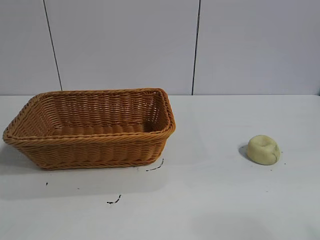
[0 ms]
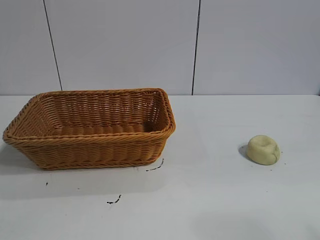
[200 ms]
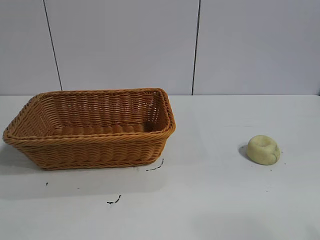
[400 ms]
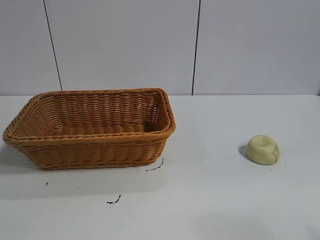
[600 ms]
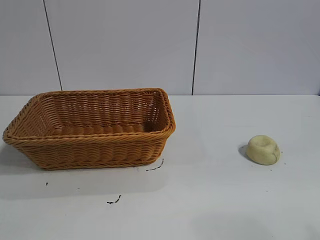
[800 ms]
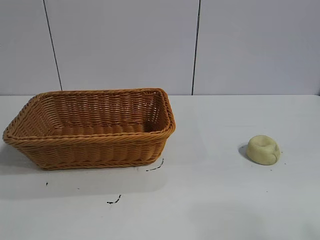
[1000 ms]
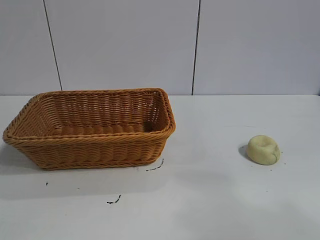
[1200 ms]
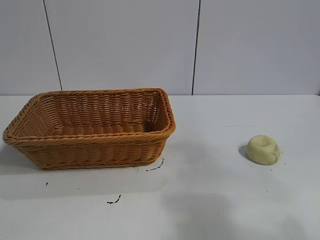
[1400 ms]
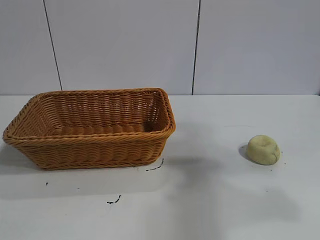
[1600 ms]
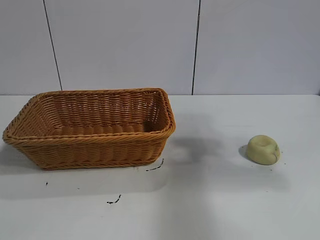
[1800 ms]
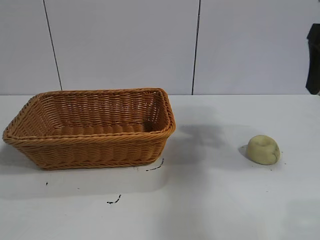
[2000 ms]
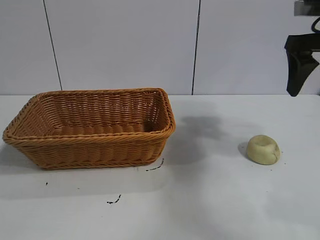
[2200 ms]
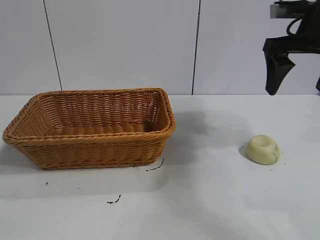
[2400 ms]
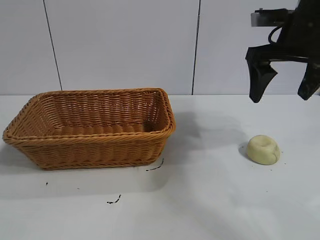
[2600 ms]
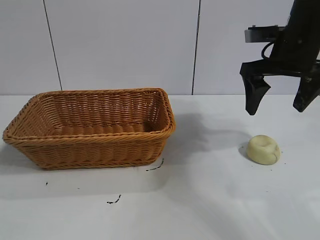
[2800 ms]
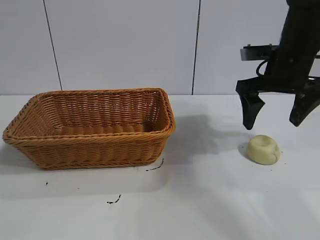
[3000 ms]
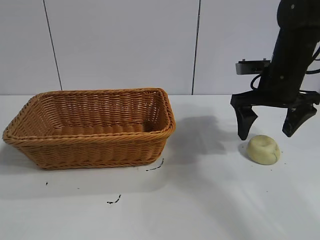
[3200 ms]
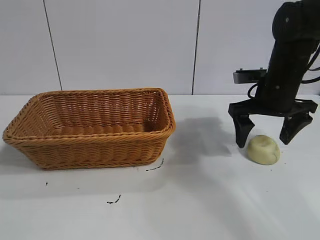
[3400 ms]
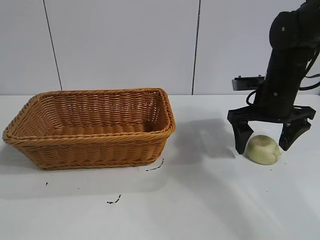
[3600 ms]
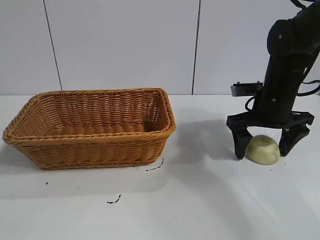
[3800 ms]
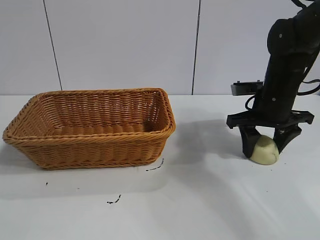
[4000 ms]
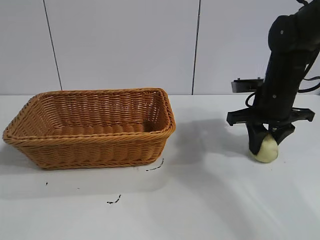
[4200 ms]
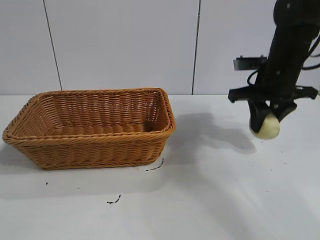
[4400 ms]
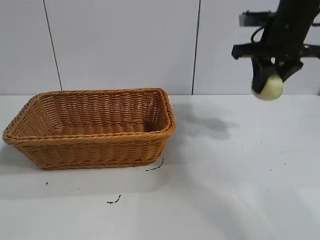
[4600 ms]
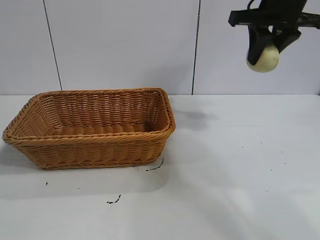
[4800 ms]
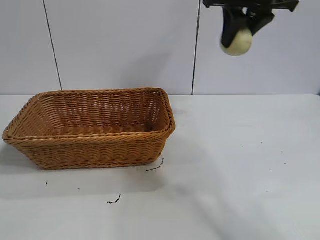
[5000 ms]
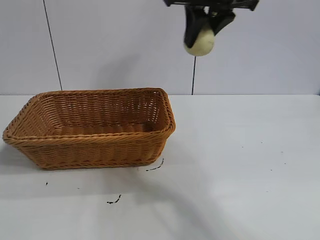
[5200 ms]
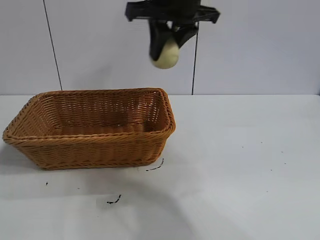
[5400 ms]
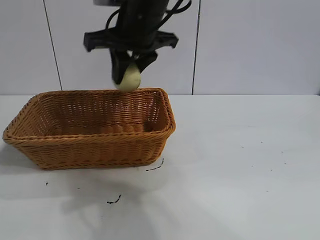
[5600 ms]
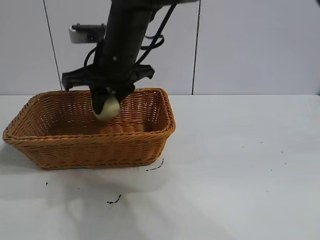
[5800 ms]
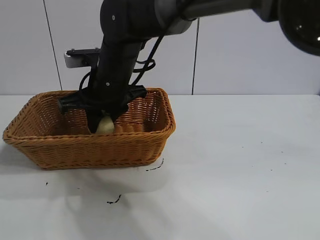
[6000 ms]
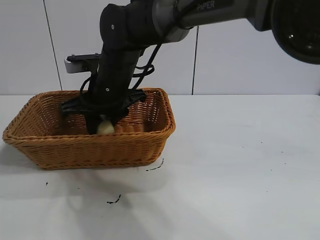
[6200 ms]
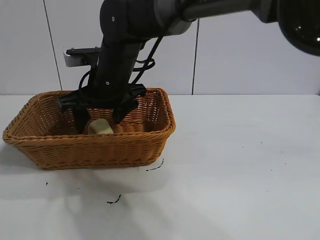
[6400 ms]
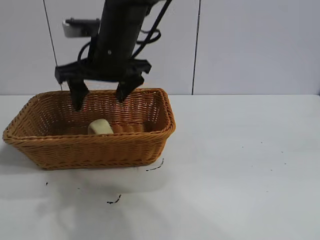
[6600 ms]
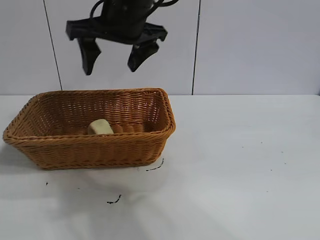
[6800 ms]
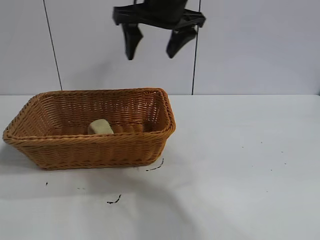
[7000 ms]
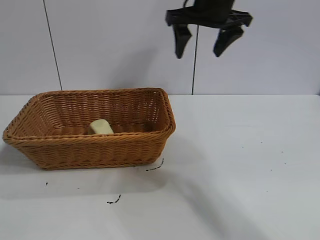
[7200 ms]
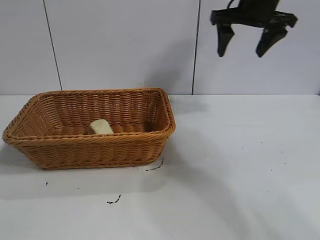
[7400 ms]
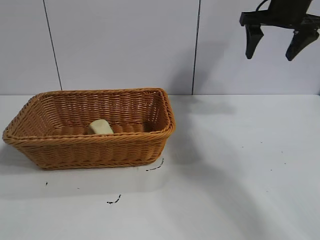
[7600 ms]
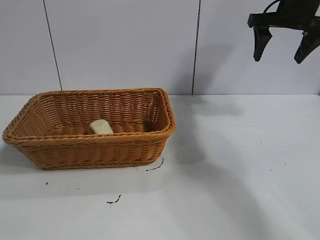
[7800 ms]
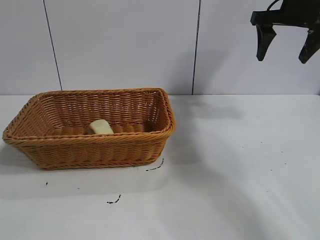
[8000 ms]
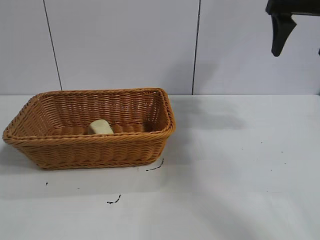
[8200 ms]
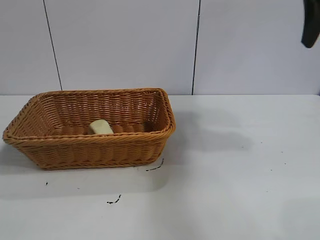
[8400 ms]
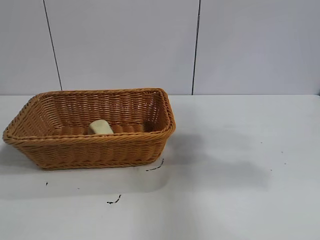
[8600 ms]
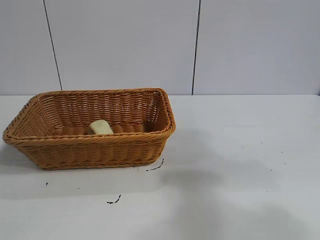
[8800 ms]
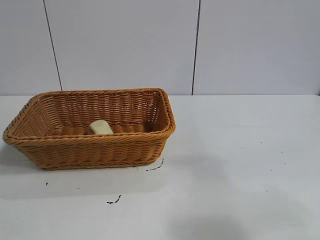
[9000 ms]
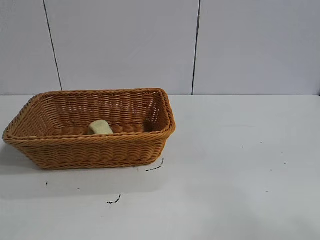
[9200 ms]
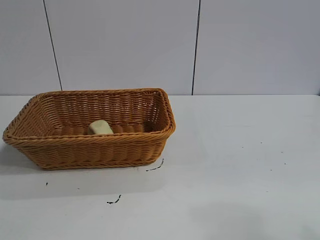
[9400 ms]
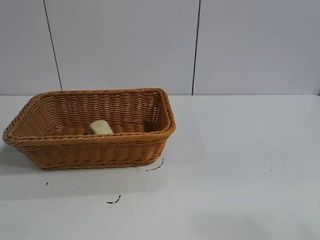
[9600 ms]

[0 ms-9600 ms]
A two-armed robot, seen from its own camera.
Task of the whole recording: pick up the egg yolk pastry and put it into the basket.
Step, 1000 ms to 4000 ms: Grasp egg yolk pastry with right gripper.
Step, 4400 ms to 6400 ms: Place the egg yolk pastry in the basket with right gripper.
